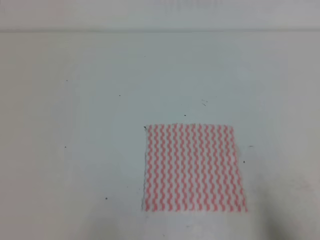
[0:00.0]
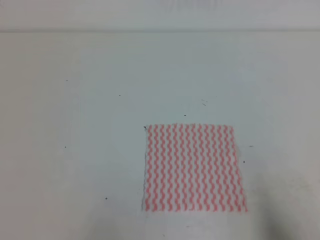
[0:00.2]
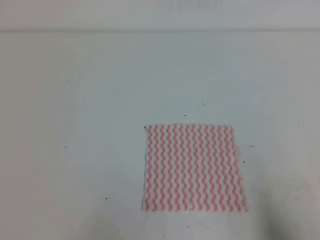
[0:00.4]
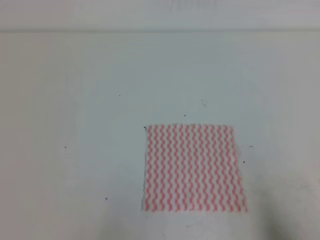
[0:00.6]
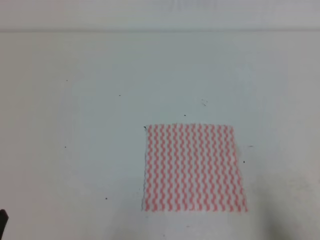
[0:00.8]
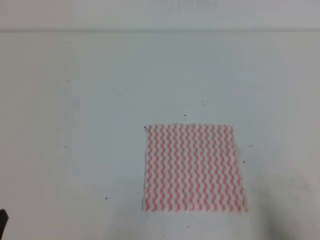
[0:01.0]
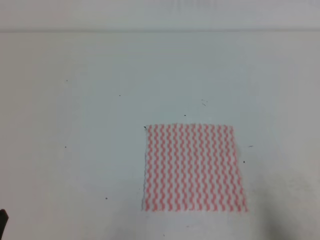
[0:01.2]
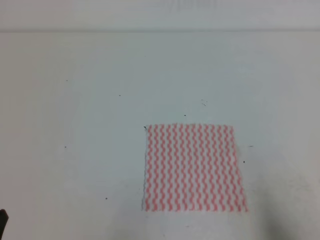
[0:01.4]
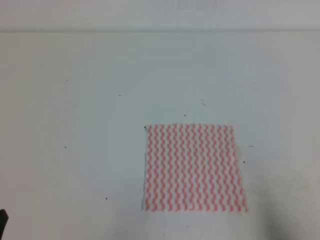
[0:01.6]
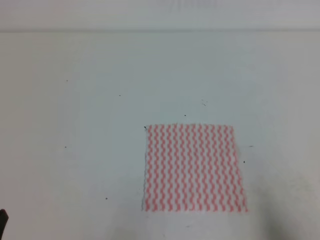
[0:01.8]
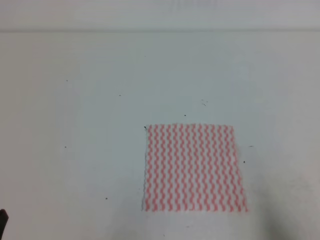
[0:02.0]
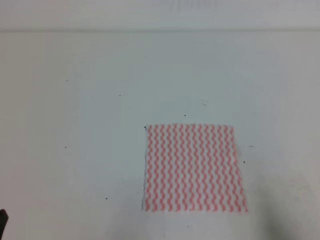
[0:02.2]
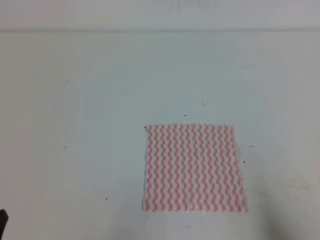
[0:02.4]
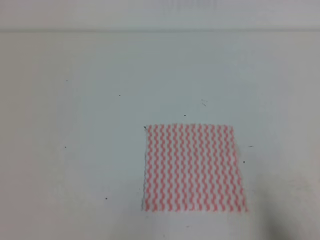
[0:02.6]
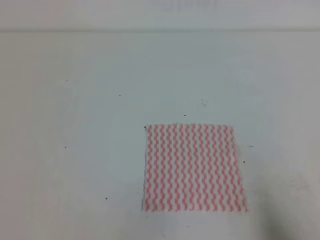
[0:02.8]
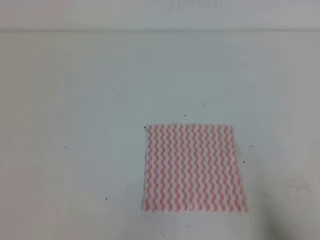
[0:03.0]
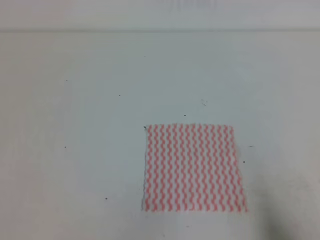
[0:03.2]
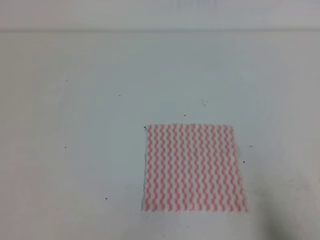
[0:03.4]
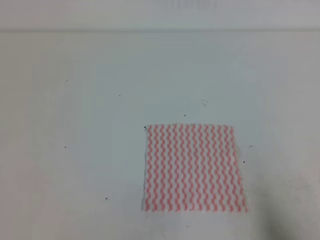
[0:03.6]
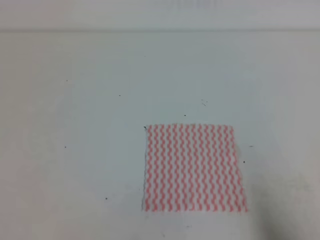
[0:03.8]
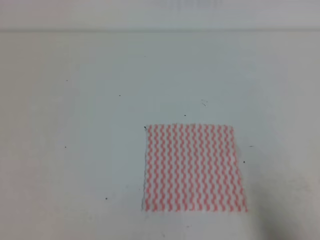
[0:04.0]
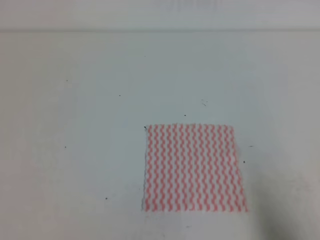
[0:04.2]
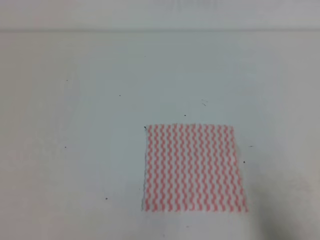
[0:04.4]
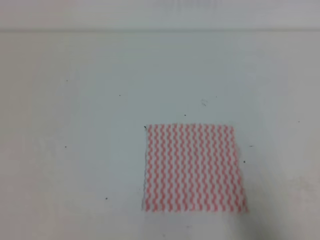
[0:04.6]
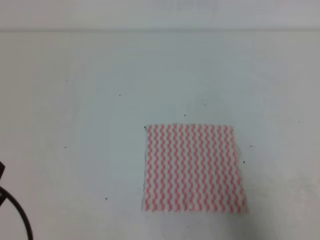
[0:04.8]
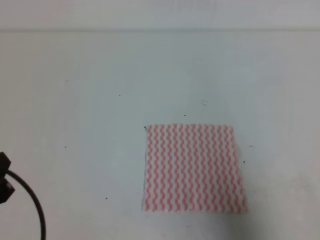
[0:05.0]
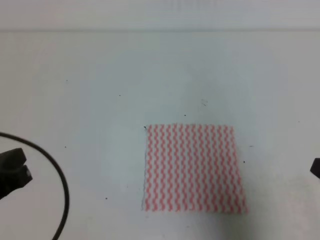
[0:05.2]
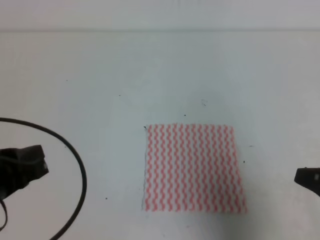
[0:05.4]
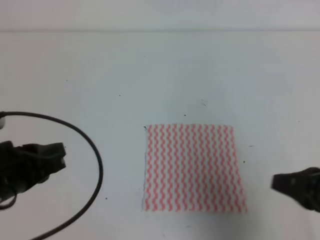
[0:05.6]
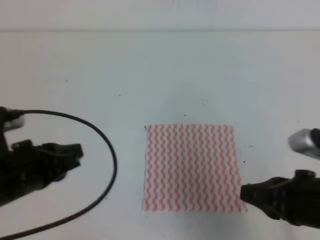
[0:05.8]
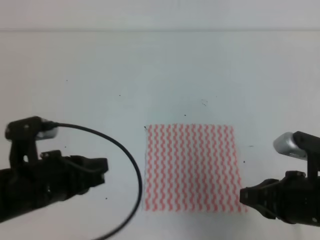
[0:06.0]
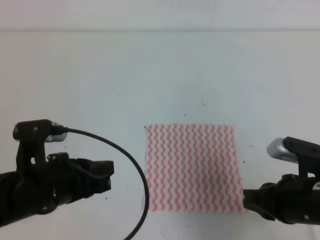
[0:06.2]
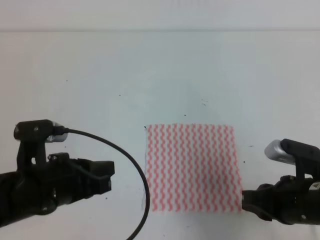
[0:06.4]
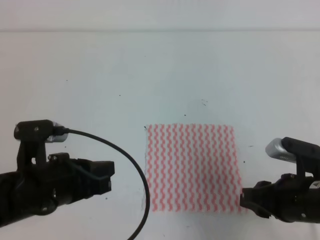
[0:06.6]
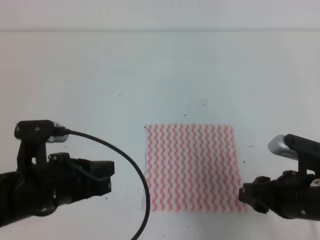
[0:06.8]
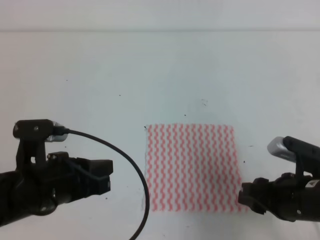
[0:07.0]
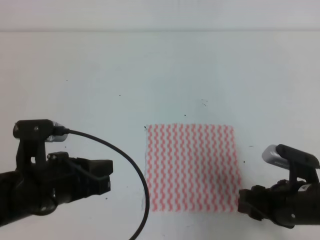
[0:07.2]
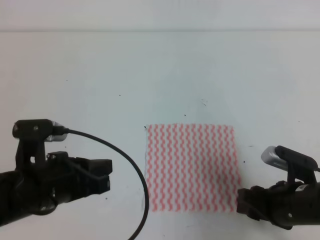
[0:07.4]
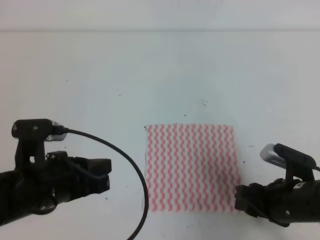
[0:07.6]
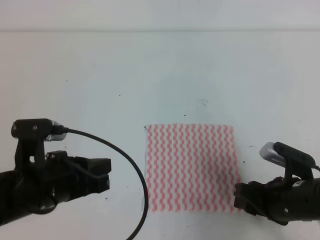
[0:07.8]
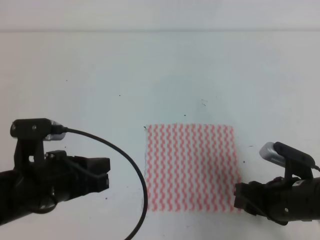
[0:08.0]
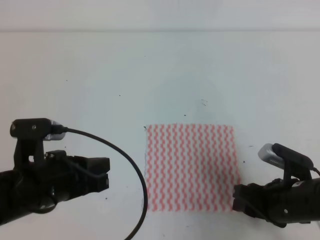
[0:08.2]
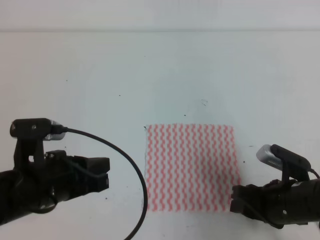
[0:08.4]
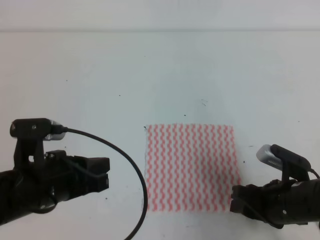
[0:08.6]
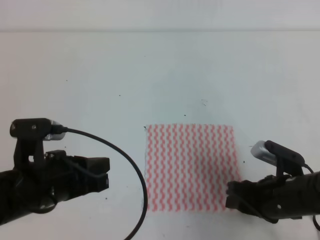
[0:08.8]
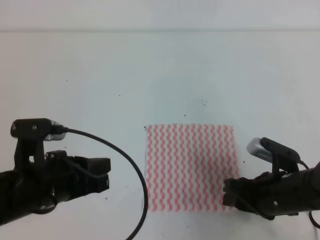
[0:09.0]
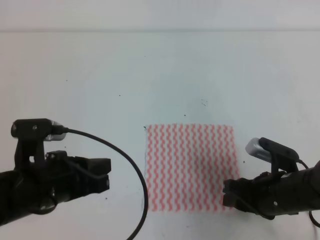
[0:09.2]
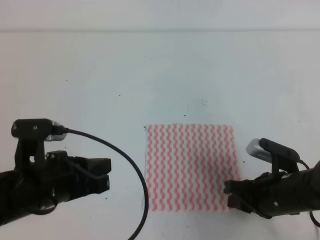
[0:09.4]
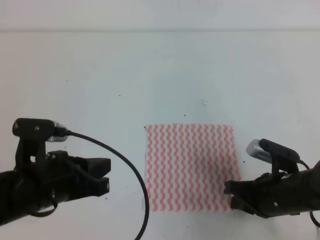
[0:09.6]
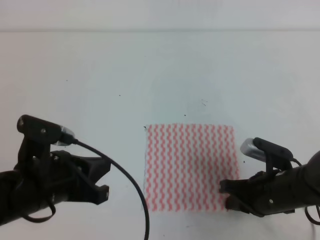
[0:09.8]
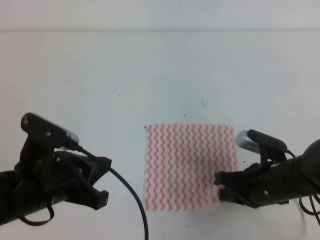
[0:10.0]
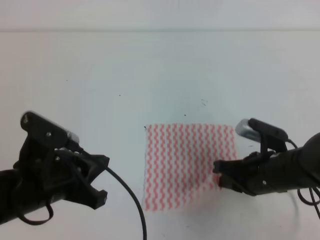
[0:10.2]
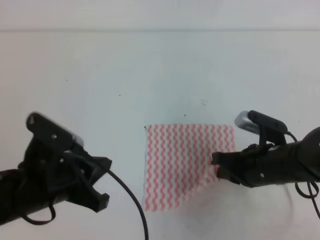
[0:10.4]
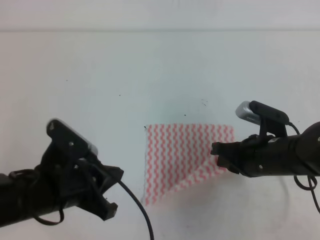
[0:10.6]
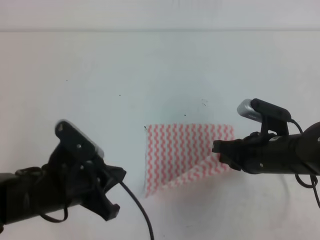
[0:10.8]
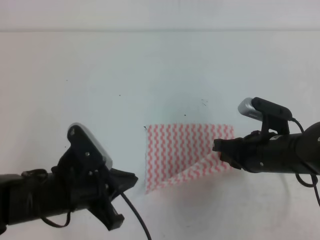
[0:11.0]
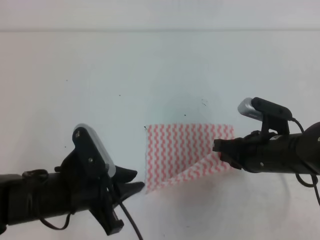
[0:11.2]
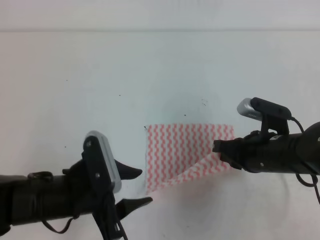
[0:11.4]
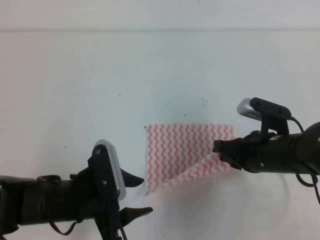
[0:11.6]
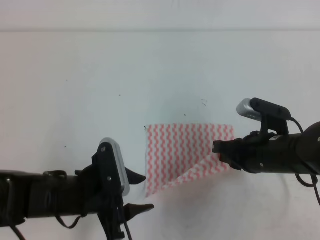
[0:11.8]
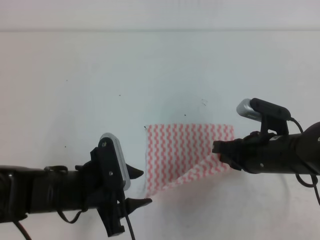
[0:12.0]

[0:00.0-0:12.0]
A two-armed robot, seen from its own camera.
0:04.4 to 0:06.0: The right gripper shifts some 15 cm forward and to the left. The left gripper goes about 15 cm forward and to the right.
0:06.0 to 0:07.6: The right gripper is displaced downward by about 5 cm, and opens.
0:07.6 to 0:09.0: The grippers stay close to where they were, moving slightly.
0:09.0 to 0:10.4: The right gripper shifts by about 5 cm, and closes.
0:10.4 to 0:12.0: The left gripper is displaced downward by about 5 cm, and opens up.

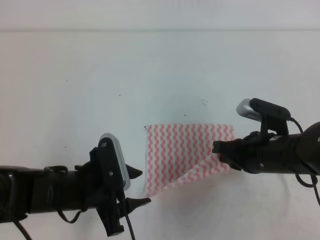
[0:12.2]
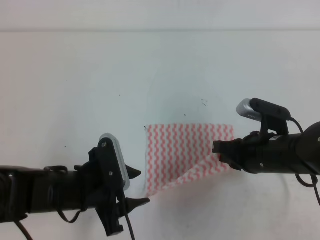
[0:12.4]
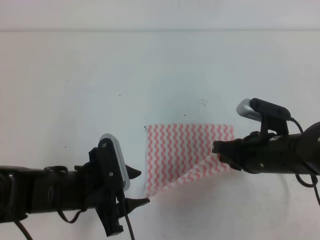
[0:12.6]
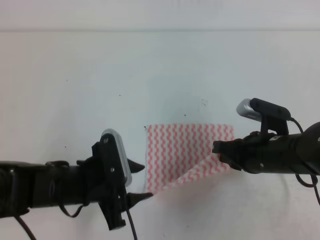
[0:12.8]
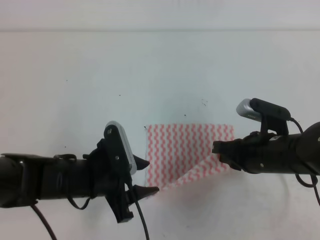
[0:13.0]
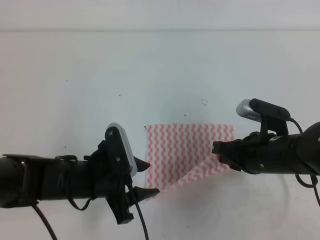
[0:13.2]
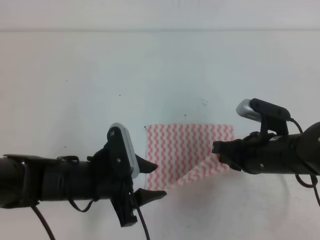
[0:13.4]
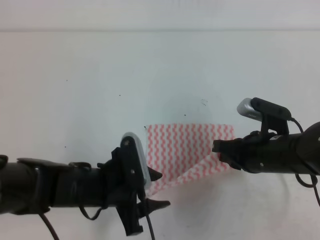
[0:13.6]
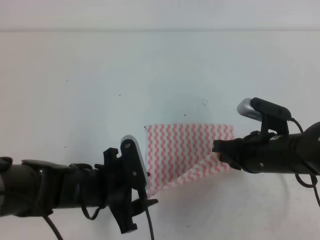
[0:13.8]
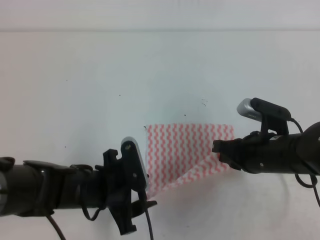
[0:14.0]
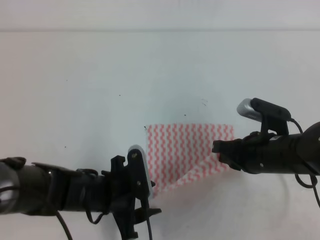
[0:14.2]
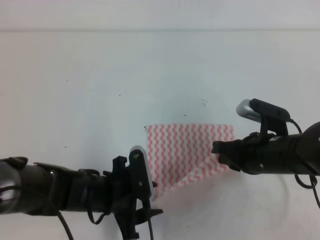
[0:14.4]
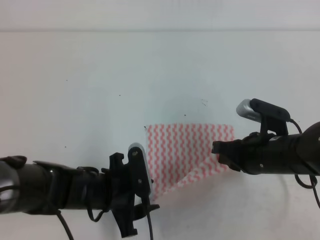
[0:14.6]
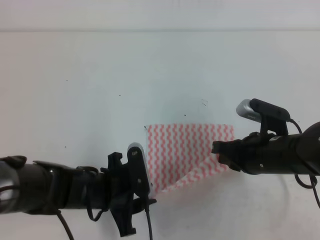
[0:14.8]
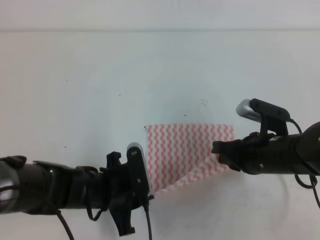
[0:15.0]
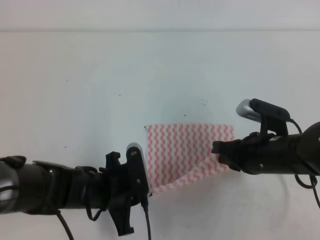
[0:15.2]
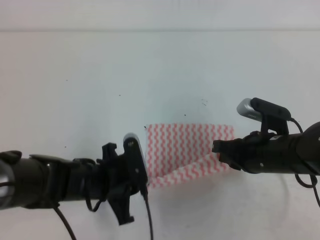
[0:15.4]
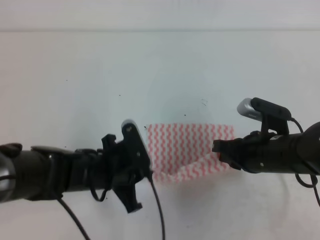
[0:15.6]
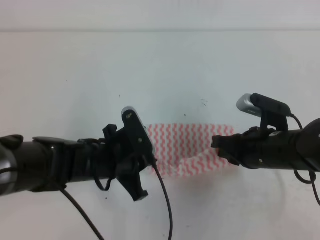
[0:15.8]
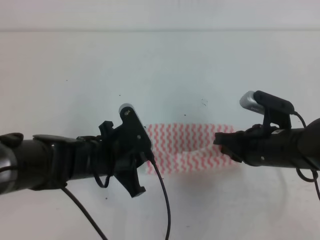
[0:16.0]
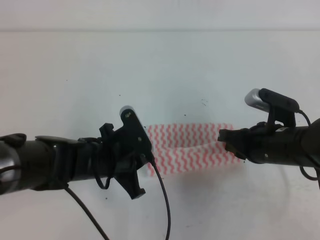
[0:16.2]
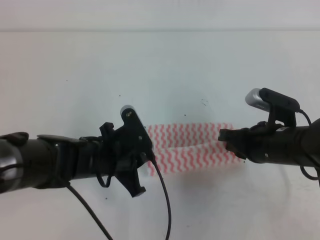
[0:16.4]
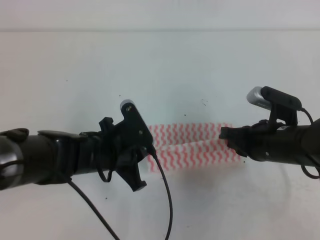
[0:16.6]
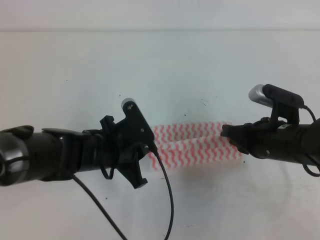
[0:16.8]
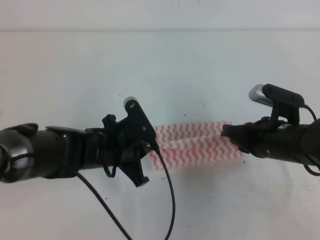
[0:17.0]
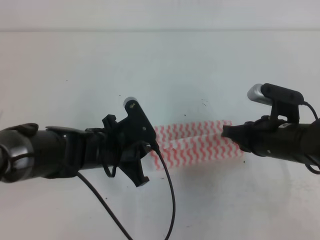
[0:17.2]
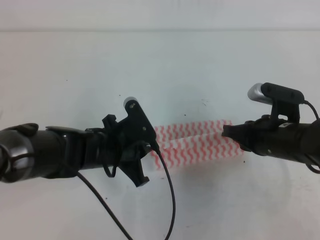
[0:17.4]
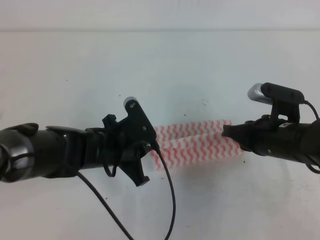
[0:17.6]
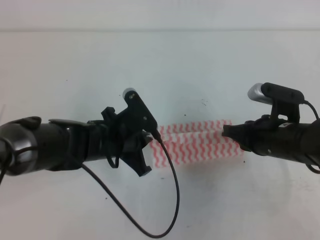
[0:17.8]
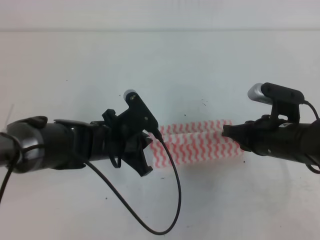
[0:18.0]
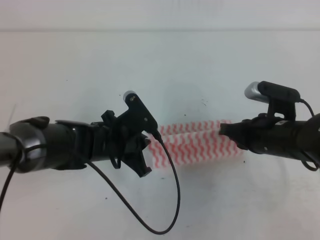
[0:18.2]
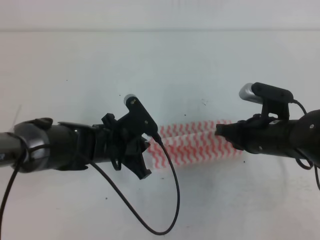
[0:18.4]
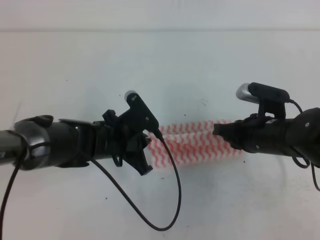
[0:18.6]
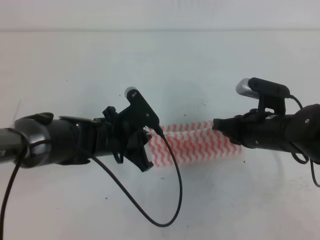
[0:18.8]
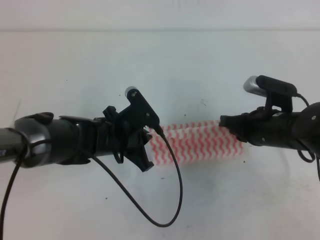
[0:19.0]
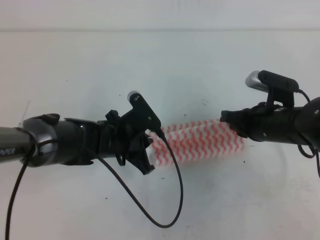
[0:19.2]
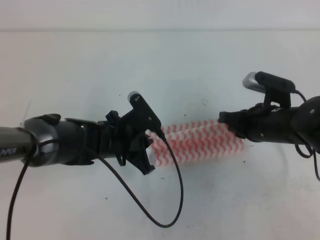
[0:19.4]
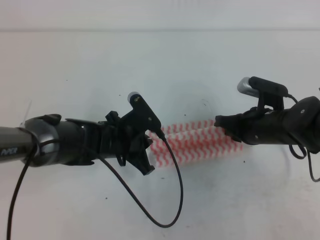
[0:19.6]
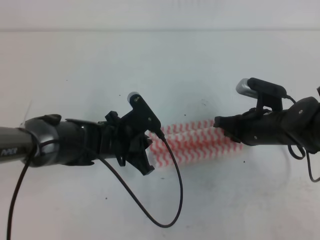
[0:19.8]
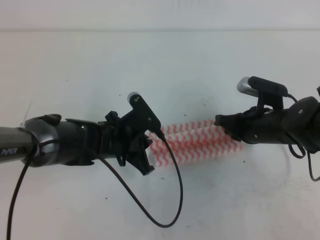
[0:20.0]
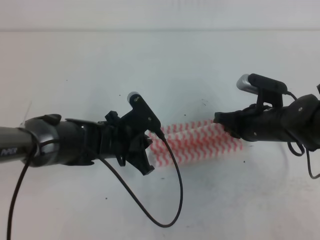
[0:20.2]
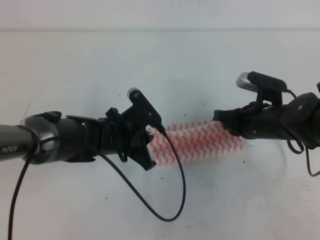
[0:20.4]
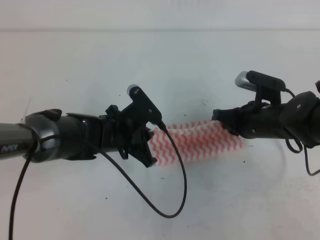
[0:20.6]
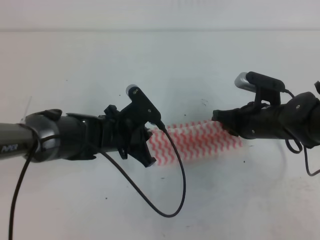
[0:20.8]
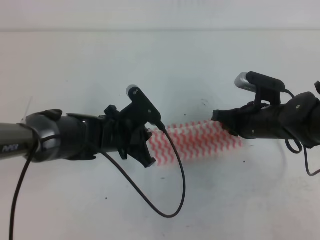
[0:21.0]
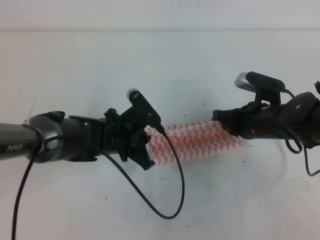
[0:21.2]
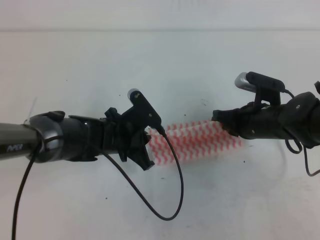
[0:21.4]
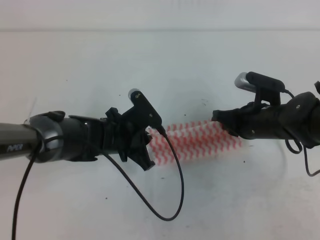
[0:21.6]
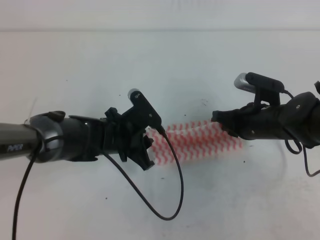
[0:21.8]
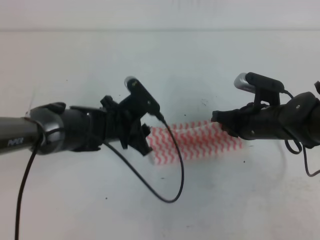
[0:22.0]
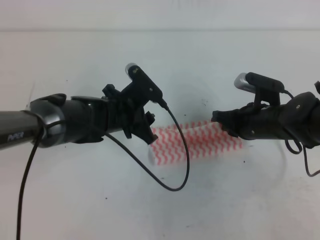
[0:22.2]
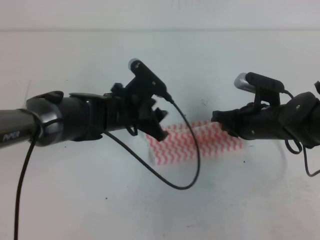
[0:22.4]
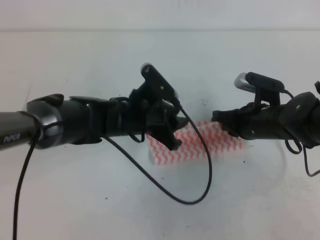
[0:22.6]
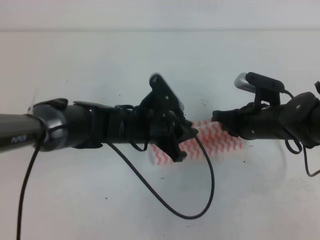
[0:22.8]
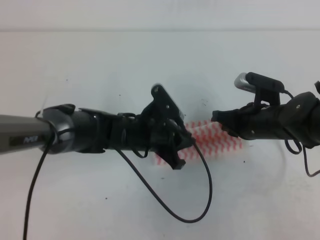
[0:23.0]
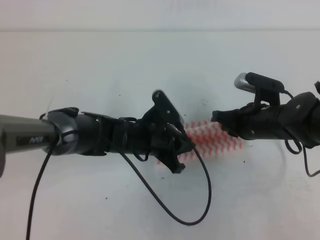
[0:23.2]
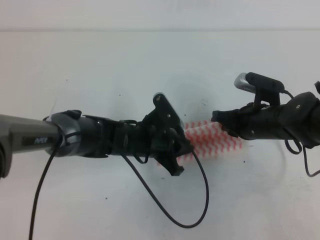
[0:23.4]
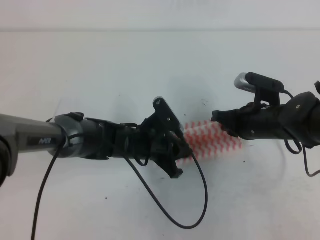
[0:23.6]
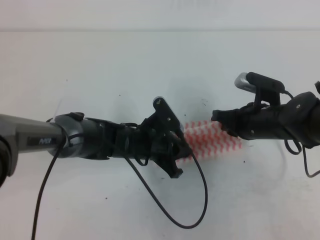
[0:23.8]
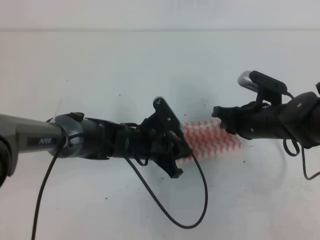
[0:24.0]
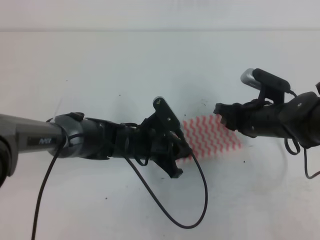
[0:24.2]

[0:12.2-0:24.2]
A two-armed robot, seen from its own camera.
Step, 0:12.2 to 0:14.6: Fold the towel upwards with the both gripper.
Step, 0:15.0 to 0:20.8: Tidy up the towels.
0:12.2 to 0:13.8: The grippers move only a little.
0:13.8 to 0:15.2: The left gripper closes.
0:15.2 to 0:16.6: The left gripper shifts by some 5 cm.
0:16.6 to 0:19.8: The grippers make only small movements.
0:19.8 to 0:21.2: Both grippers stay put.
0:21.2 to 0:22.6: The left gripper opens its fingers.
0:22.6 to 0:24.2: The right gripper opens; the left gripper heads downward, covering roughly 5 cm.
